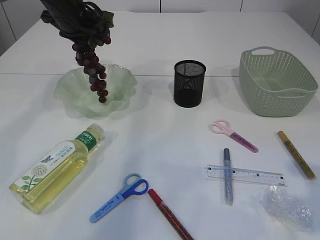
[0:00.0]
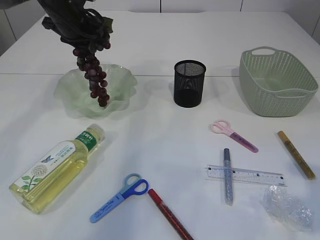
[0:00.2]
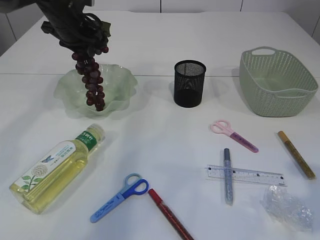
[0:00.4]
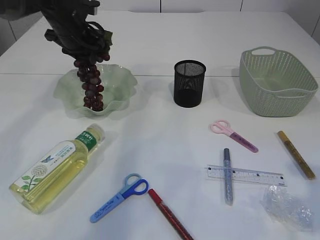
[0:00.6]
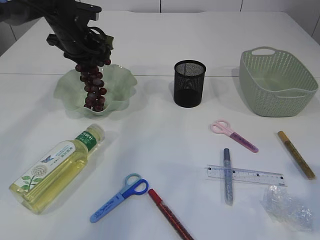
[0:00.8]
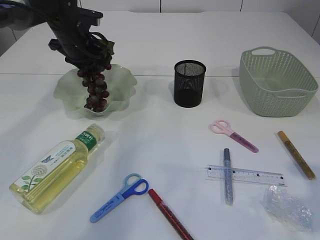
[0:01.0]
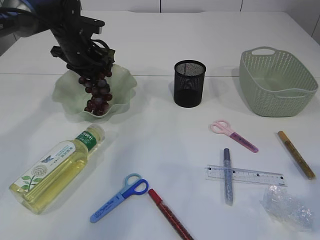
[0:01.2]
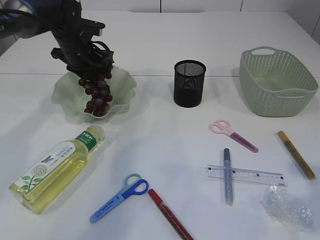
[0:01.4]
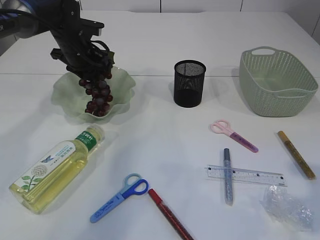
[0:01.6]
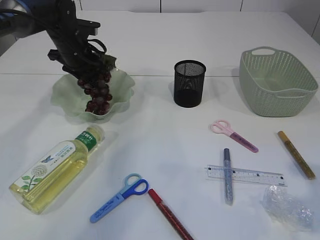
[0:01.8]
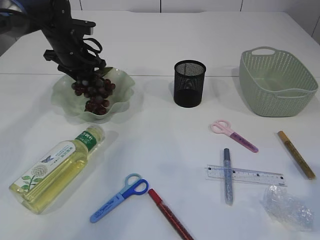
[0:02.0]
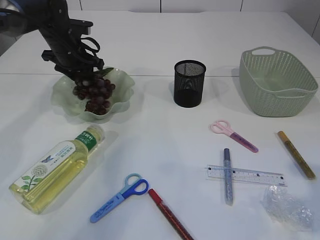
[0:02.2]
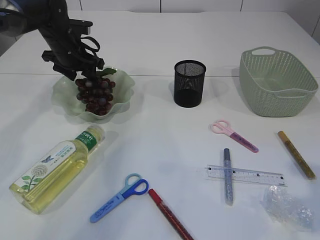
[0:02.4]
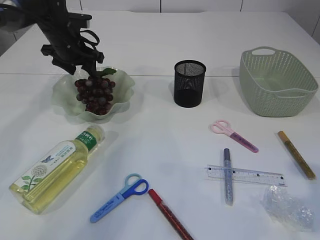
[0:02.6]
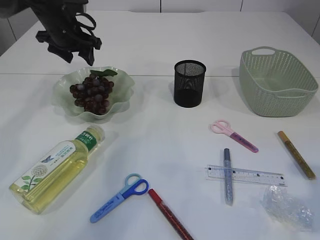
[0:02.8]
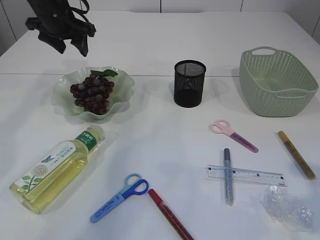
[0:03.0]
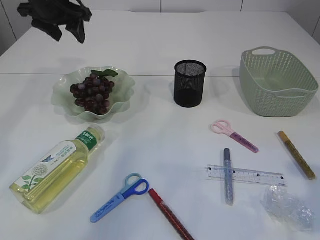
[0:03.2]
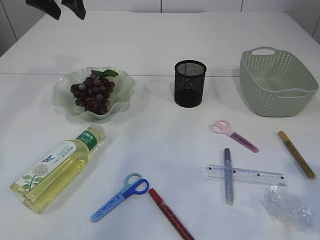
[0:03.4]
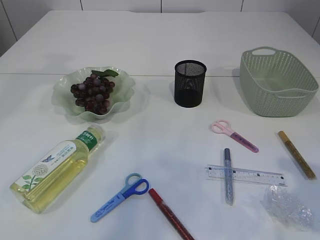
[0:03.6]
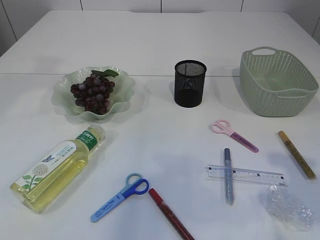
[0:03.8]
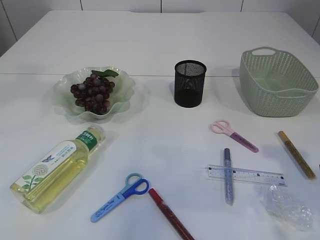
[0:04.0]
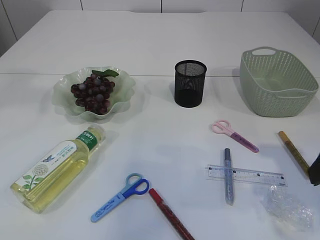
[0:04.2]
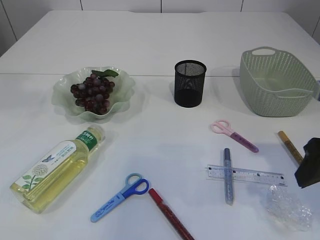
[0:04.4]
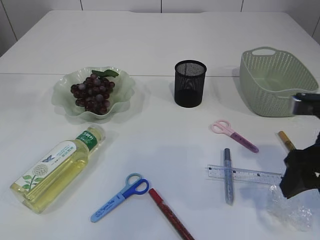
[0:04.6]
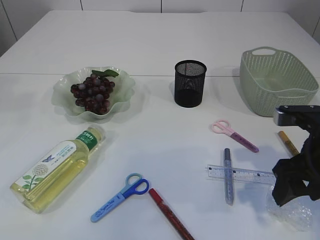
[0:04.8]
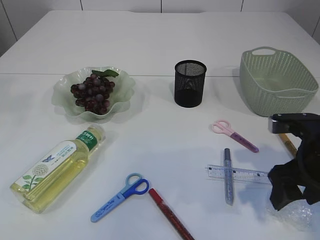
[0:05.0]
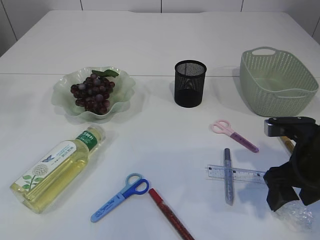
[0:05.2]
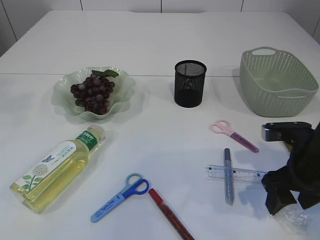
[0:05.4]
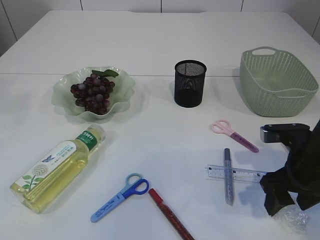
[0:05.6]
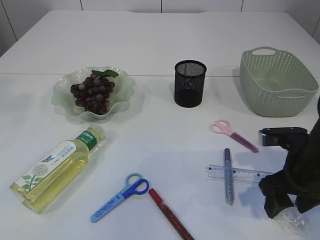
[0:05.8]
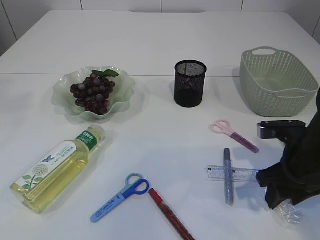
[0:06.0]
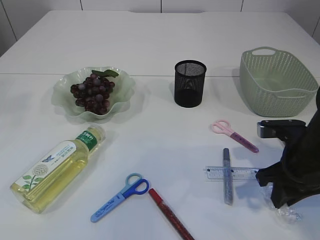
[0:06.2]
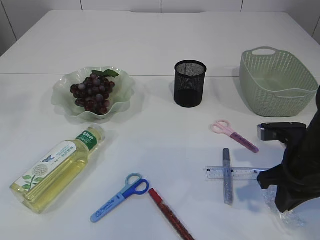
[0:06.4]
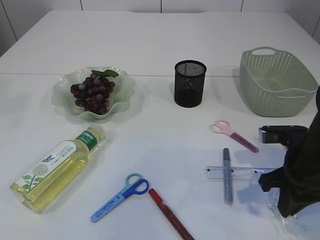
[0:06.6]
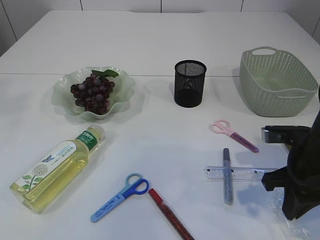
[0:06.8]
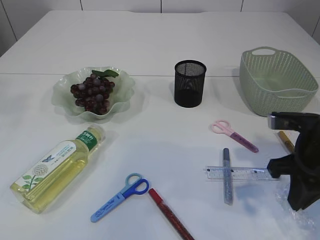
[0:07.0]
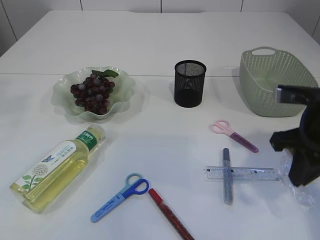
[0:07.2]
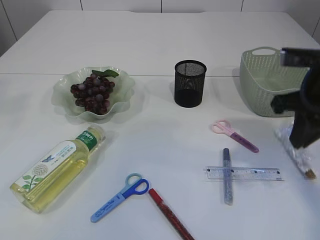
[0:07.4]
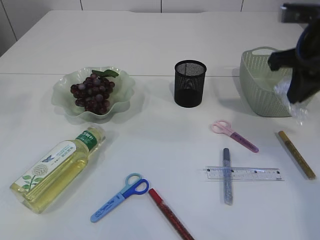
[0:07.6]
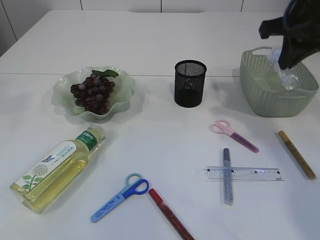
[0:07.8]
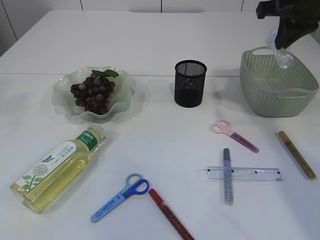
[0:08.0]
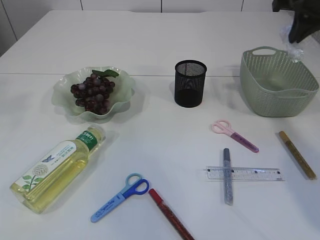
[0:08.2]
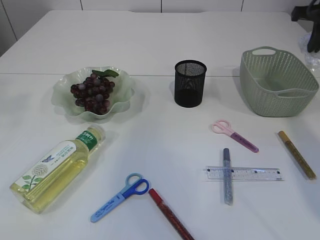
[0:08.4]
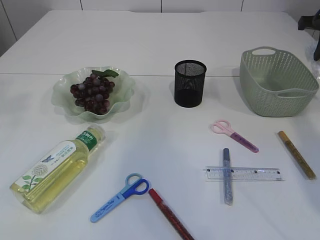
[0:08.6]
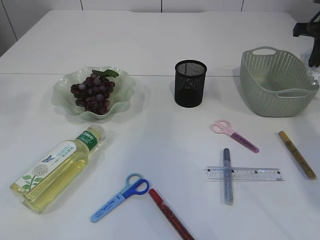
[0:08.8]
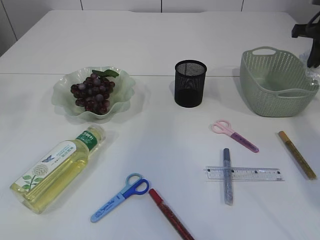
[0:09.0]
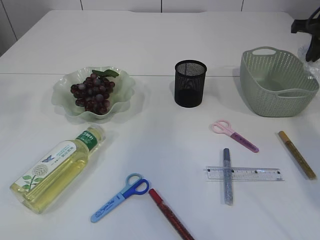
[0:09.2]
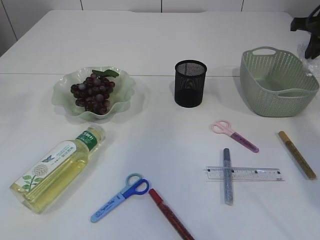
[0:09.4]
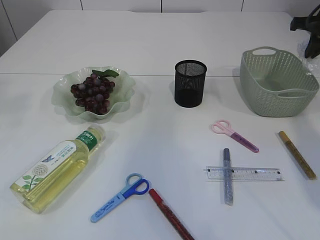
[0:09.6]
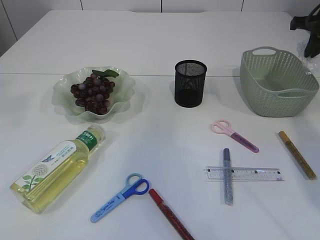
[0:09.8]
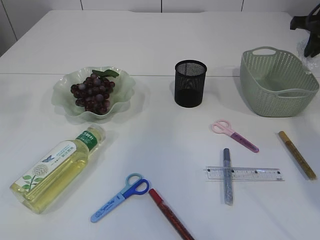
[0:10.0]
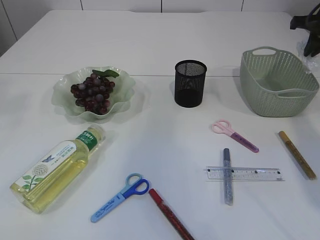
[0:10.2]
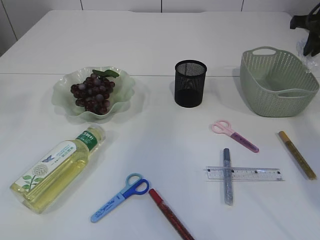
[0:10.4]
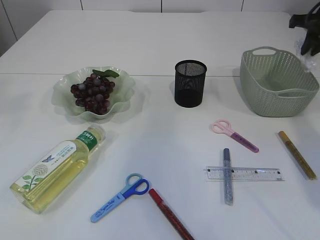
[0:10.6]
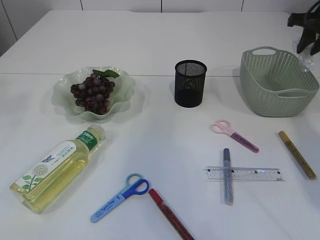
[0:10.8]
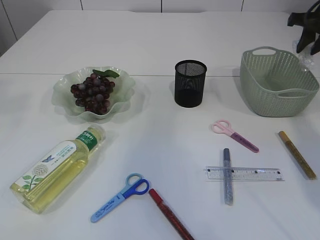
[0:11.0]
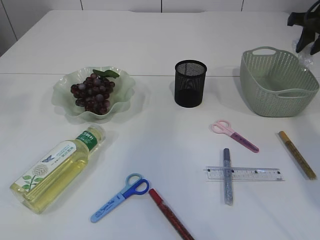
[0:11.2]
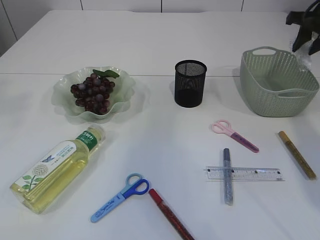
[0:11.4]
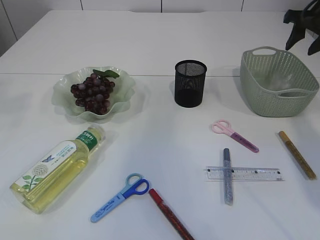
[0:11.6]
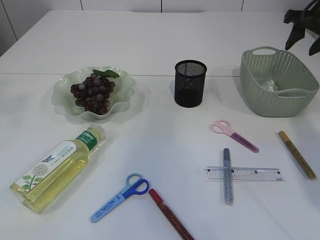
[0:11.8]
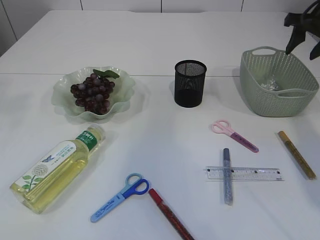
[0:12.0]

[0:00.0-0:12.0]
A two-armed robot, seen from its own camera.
Step, 0:00.0 to 0:02.8: Place the grapes in the plate.
Step, 0:03.0 to 0:07.2: Pick up the plastic.
Step, 0:07.4 to 0:11.8: Place the plastic in the basket.
0:00.0 to 0:01.6: The left gripper goes approximately 10 cm downward.
0:01.6 to 0:03.0: The left gripper shifts approximately 10 cm upward, and opens up.
0:03.0 to 0:04.4: The left gripper goes some 30 cm upward and backward. Meanwhile the right gripper is displaced forward and downward by some 10 cm.
0:04.4 to 0:06.0: The right gripper moves downward and forward, approximately 10 cm.
0:06.0 to 0:07.6: The right gripper is displaced upward by about 15 cm, and closes its fingers.
0:07.6 to 0:09.0: The right gripper is displaced forward and to the right by some 20 cm.
0:09.0 to 0:10.4: The grippers make only small movements.
0:10.4 to 0:12.0: The right gripper opens.

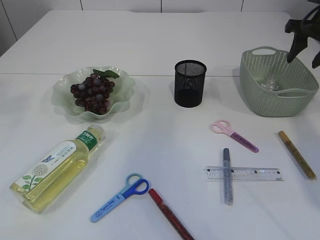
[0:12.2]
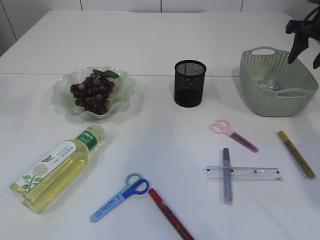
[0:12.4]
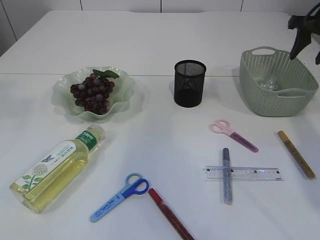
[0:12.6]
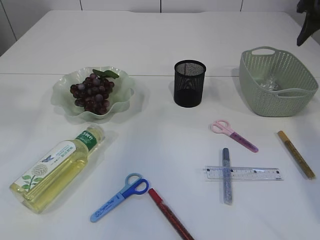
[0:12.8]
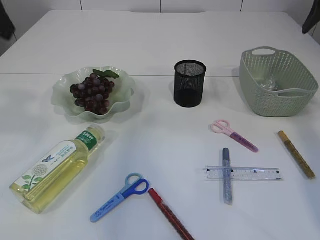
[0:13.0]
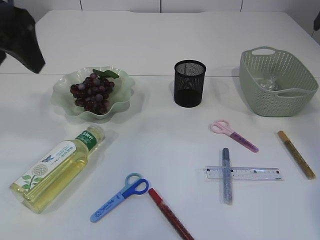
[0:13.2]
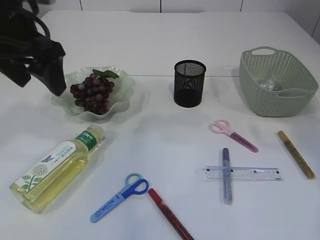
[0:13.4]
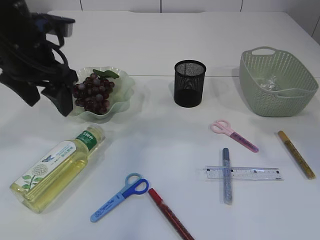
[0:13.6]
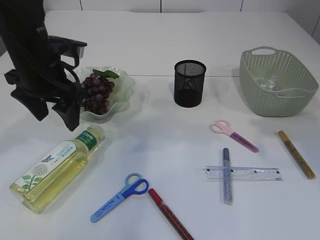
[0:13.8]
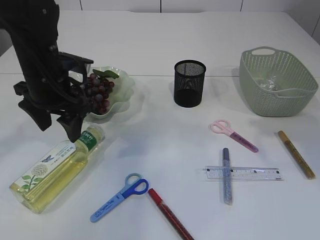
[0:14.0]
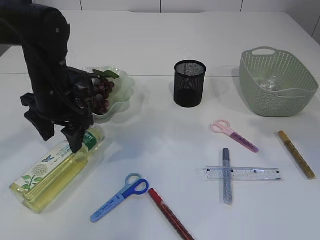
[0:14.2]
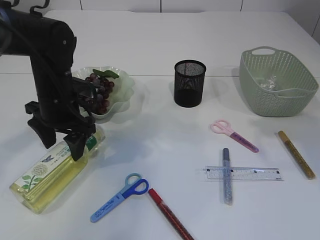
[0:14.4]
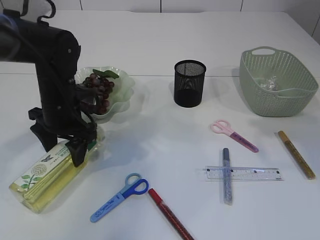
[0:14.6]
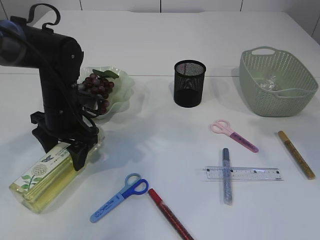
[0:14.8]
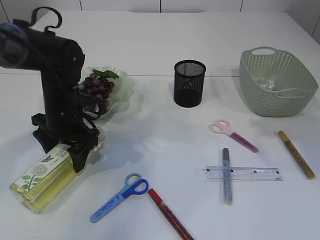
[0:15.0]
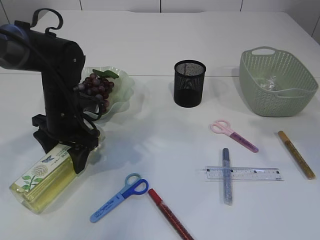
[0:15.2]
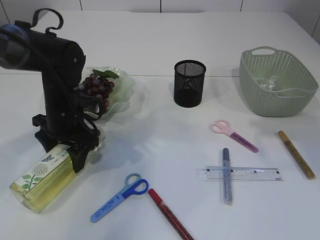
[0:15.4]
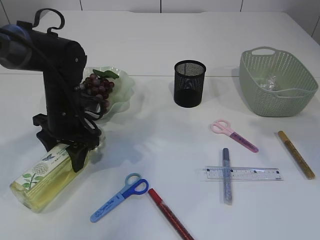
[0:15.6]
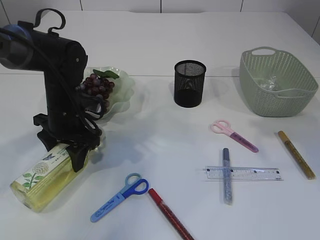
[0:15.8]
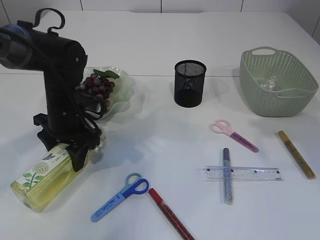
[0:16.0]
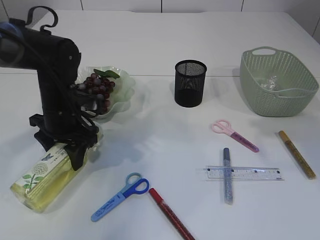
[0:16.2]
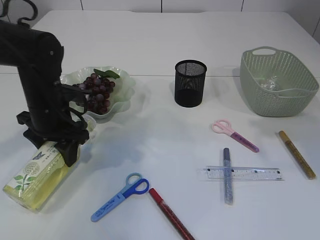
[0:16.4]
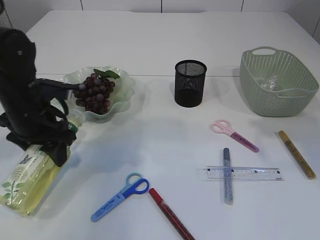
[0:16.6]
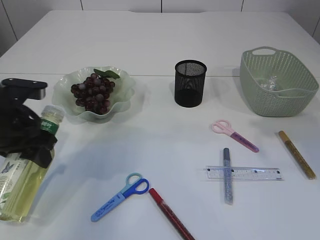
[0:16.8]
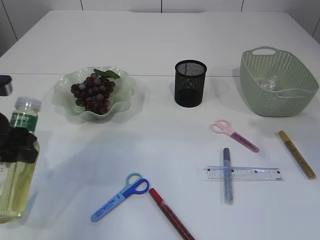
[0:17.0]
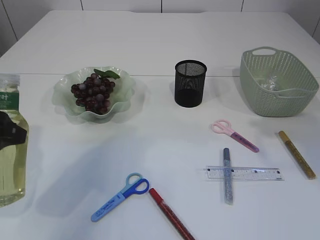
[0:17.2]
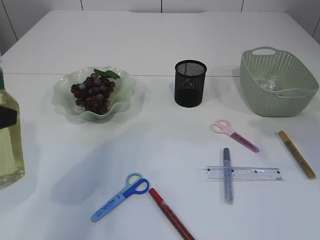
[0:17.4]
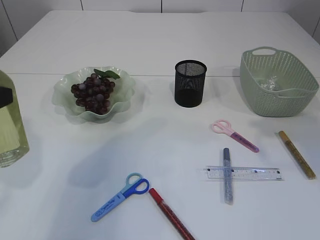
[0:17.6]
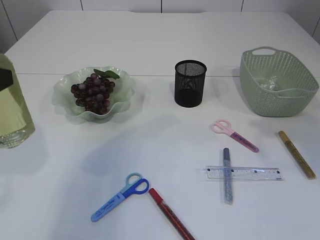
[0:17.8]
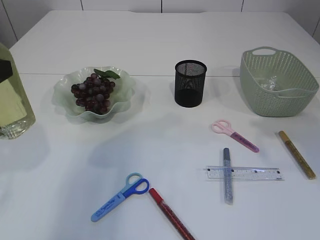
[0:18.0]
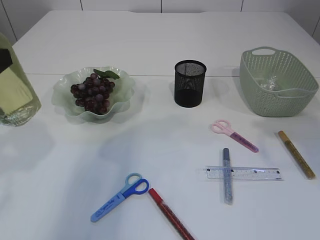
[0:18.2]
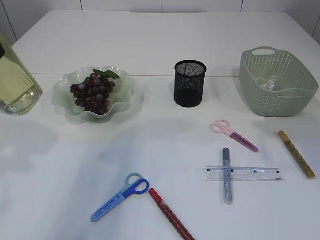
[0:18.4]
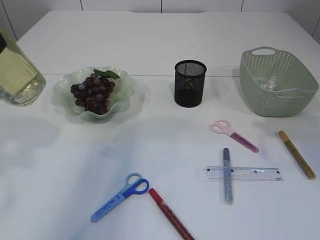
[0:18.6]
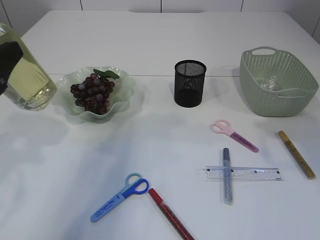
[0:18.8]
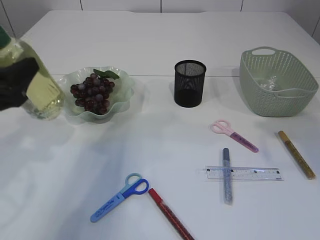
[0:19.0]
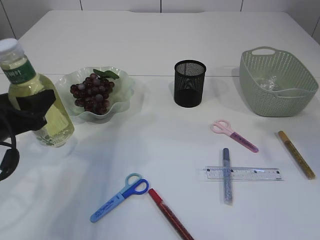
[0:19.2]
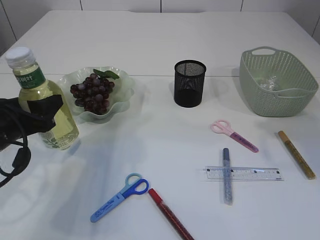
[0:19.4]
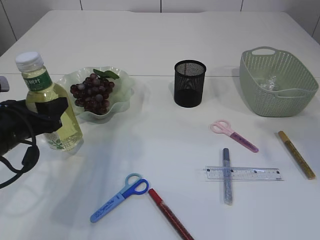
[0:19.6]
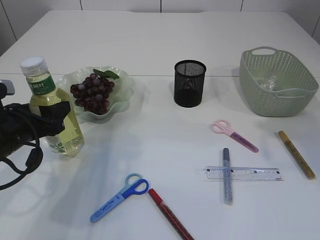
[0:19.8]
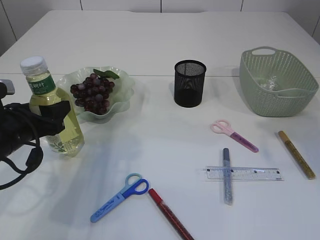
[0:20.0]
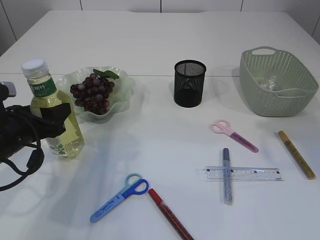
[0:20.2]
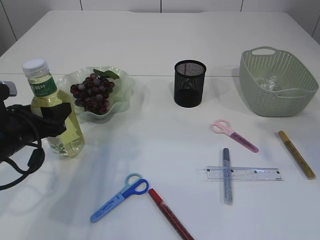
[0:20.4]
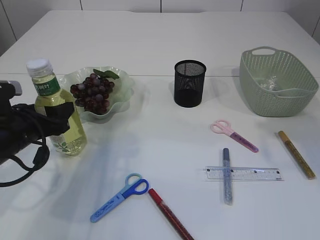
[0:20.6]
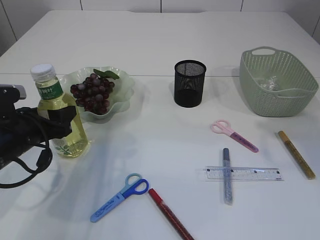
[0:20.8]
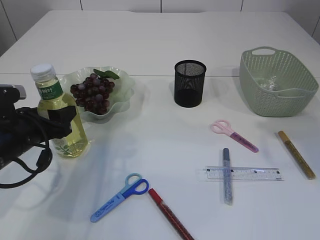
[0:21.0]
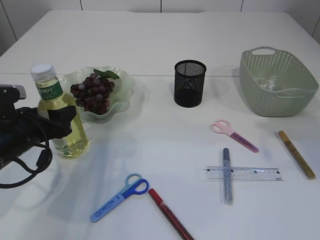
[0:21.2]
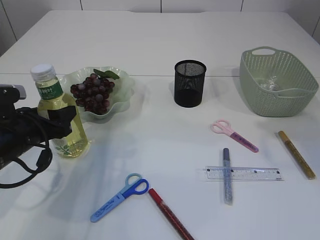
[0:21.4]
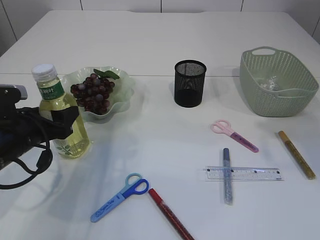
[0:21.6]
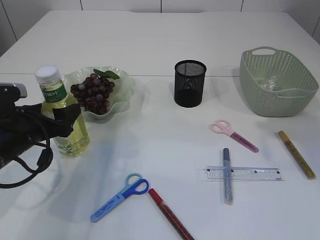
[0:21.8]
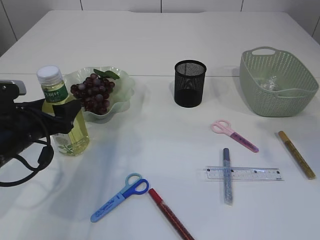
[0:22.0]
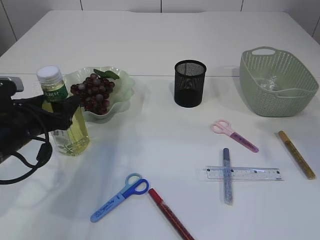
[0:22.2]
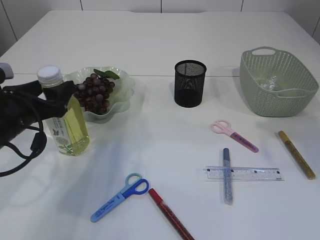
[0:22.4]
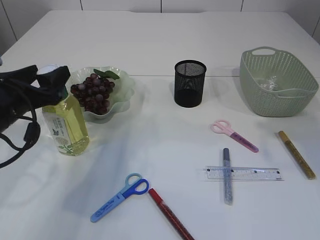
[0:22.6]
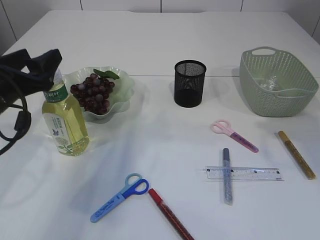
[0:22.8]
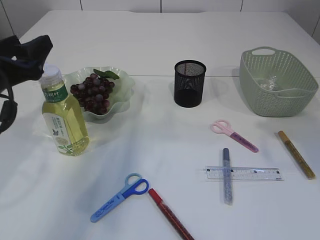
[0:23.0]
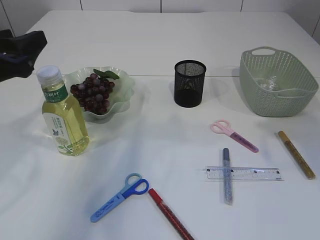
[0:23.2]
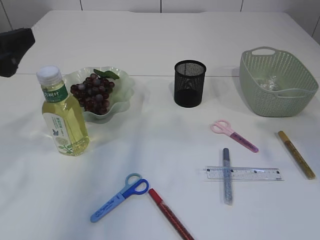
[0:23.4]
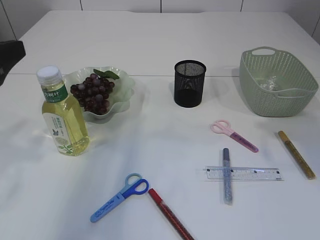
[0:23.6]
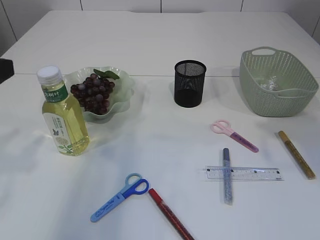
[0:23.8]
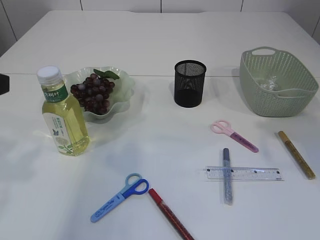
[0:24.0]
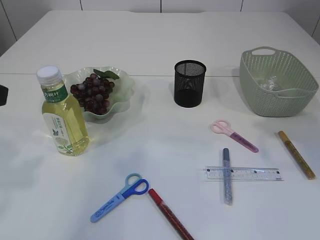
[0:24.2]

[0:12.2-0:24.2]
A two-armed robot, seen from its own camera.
Step, 0:12.2 to 0:17.0: Pick up the bottle with the left arm.
Step, 0:17.2 to 0:23.0: Place the bottle.
0:12.2 to 0:13.8: The left gripper shifts approximately 25 cm downward. Meanwhile the right gripper is displaced backward and upward by about 20 cm.
0:13.8 to 0:15.2: The left gripper shifts approximately 10 cm downward.
0:15.2 to 0:16.6: The left gripper changes place by approximately 5 cm.
0:16.6 to 0:18.2: The left gripper moves backward, upward and to the left, about 20 cm.
0:18.2 to 0:19.8: The left gripper travels downward and forward by some 15 cm.
0:19.8 to 0:21.2: The grippers stay close to where they were, moving slightly.
0:21.2 to 0:22.6: The left gripper goes approximately 5 cm upward.
0:22.6 to 0:24.2: The left gripper travels upward and backward by some 20 cm.
